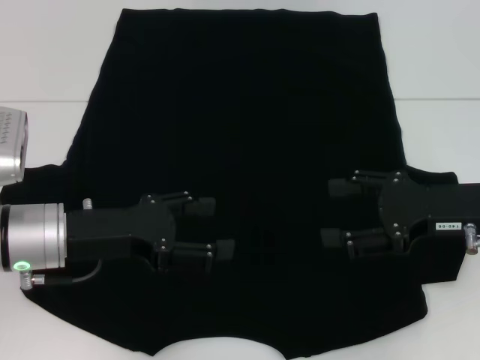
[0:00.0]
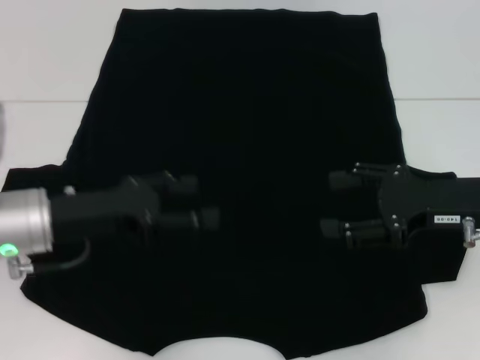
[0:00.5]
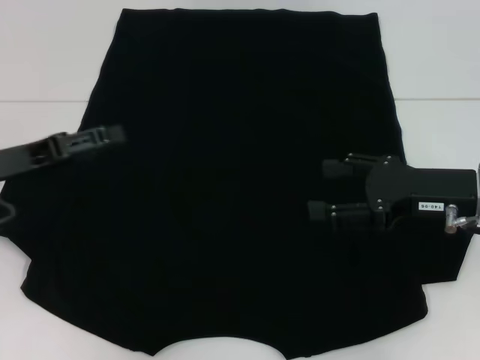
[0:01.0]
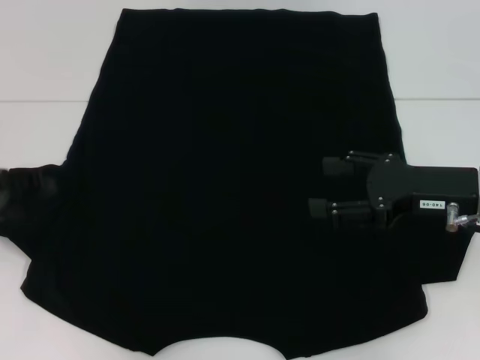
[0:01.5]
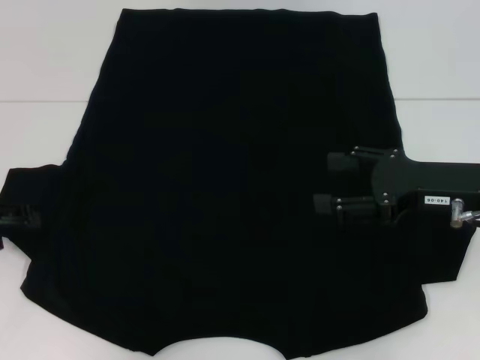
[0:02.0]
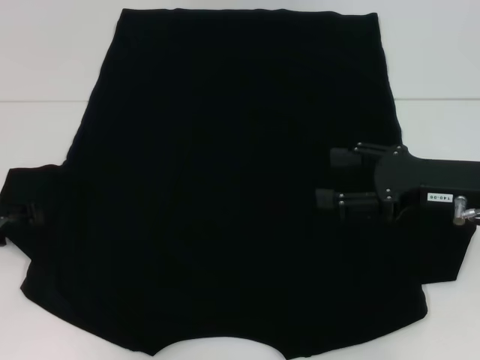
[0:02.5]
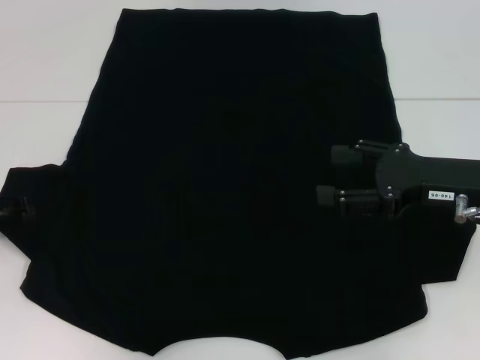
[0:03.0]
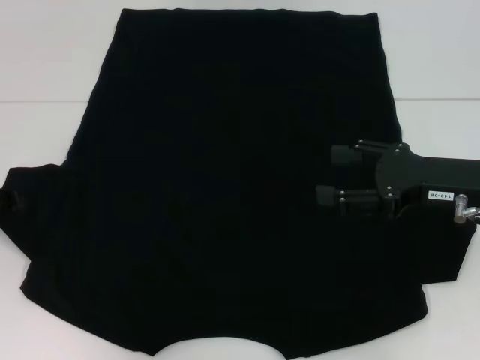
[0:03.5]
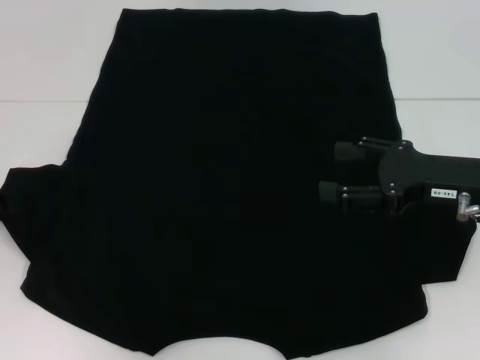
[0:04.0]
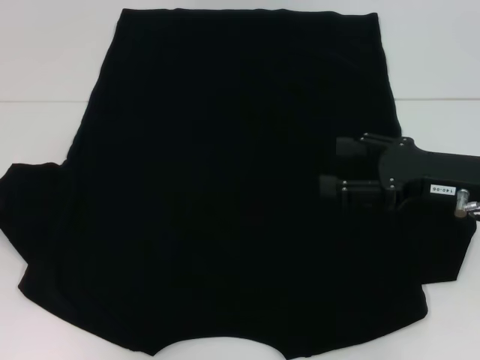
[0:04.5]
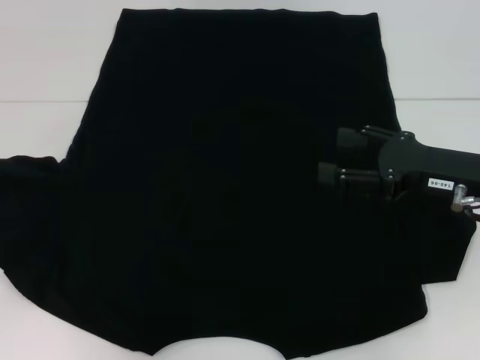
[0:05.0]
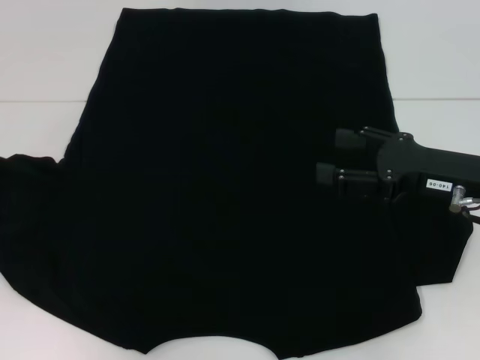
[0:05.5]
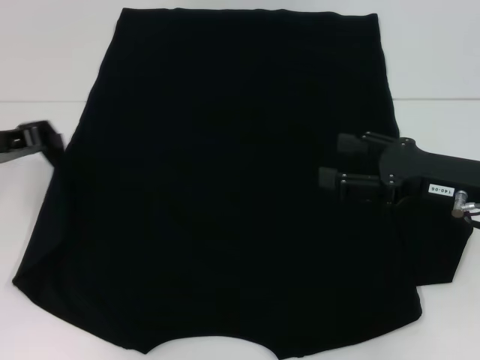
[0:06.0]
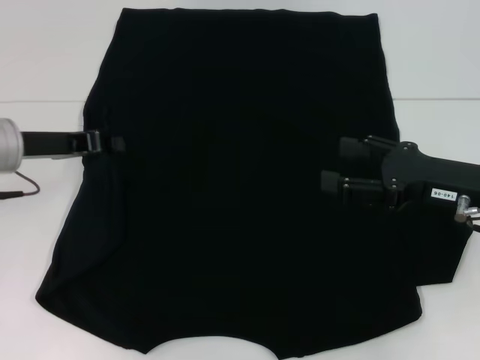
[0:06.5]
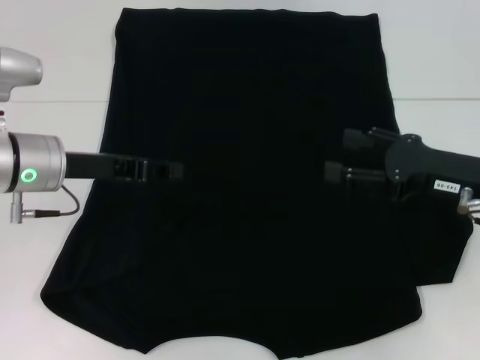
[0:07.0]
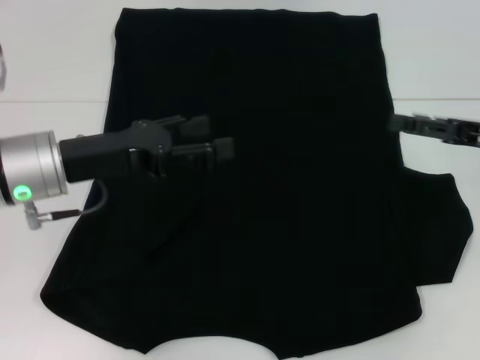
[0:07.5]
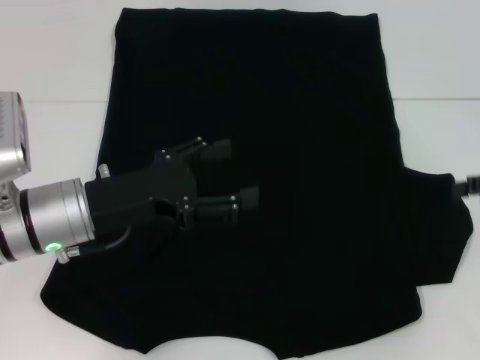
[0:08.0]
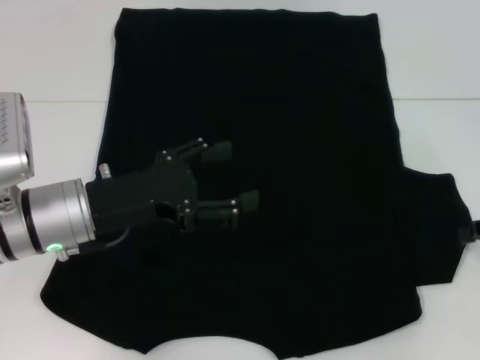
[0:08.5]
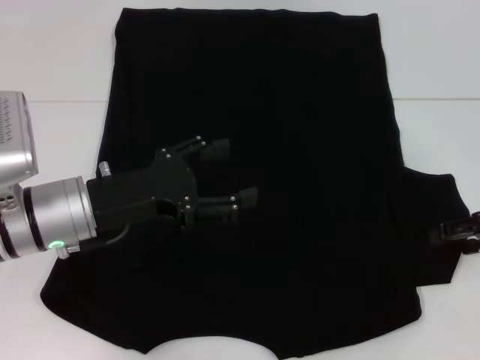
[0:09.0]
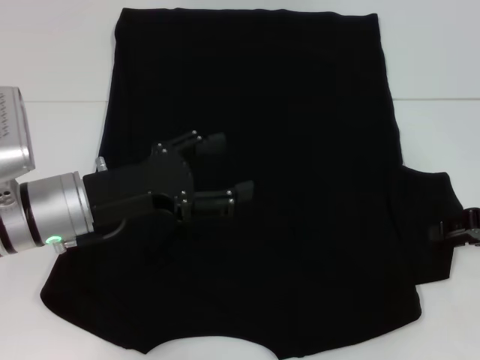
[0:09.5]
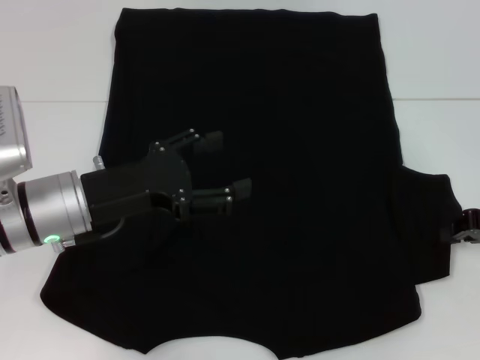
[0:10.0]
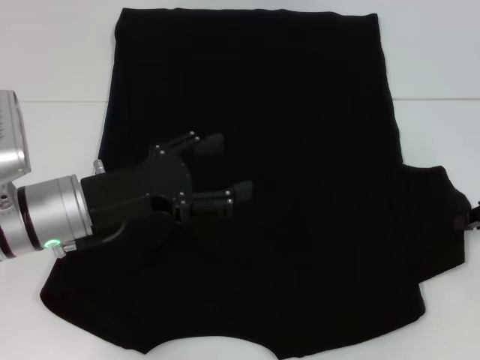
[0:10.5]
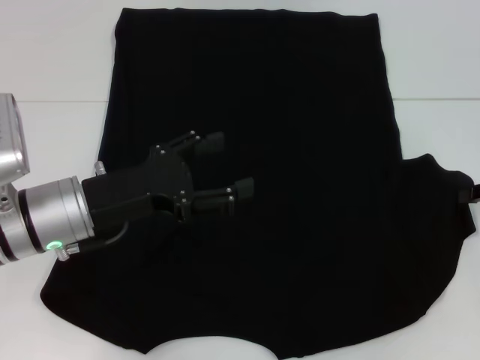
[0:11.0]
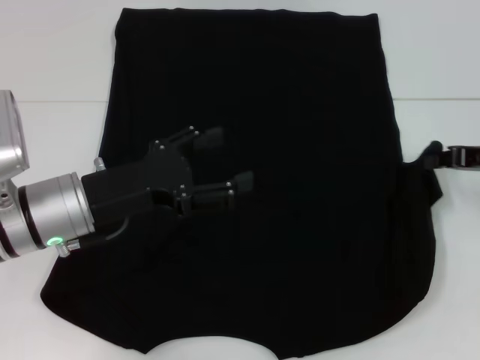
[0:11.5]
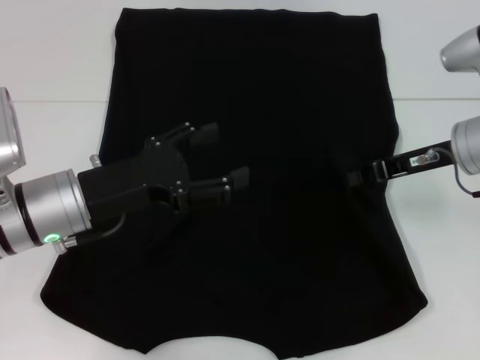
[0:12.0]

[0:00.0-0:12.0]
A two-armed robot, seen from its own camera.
Step, 0:00.0 to 0:06.5: Fold the bottom left sleeve with your left hand.
0:00.0 to 0:02.0: The left gripper is displaced to the left by about 15 cm.
0:04.0 to 0:06.0: The left gripper moves roughly 5 cm, and closes.
0:06.0 to 0:08.0: The left gripper goes about 15 cm to the right and backward, and opens its fingers. The right gripper heads to the right, covering about 10 cm.
0:08.0 to 0:10.0: The right gripper changes place by approximately 5 cm, and closes up.
0:10.0 to 0:12.0: The right gripper shifts some 10 cm to the left and forward.

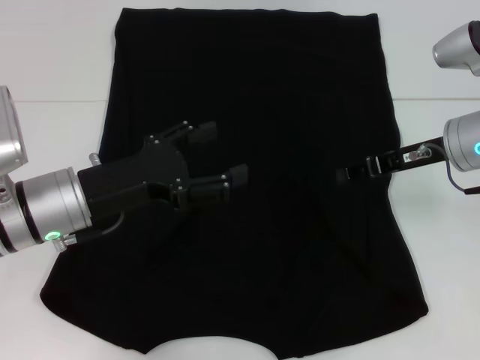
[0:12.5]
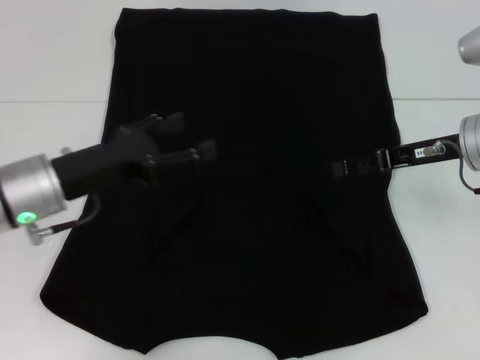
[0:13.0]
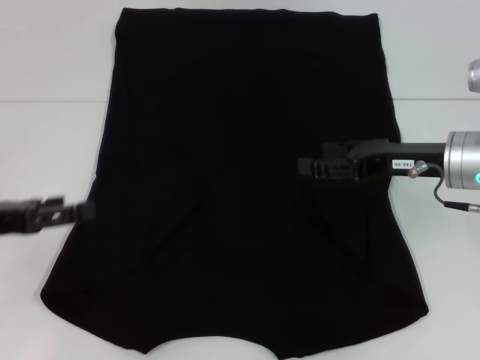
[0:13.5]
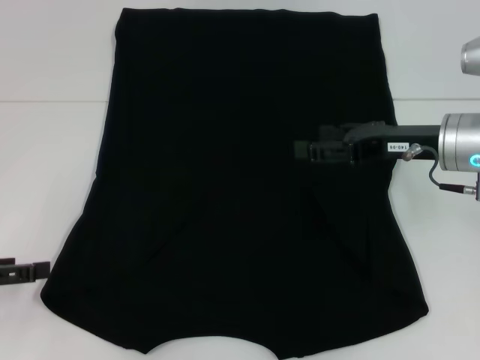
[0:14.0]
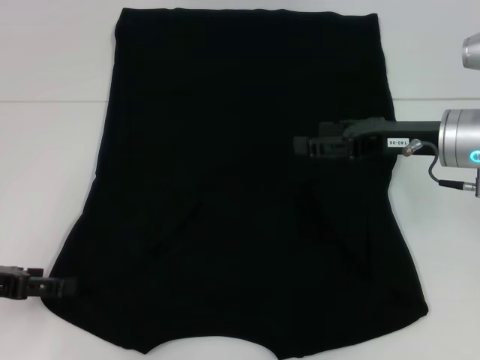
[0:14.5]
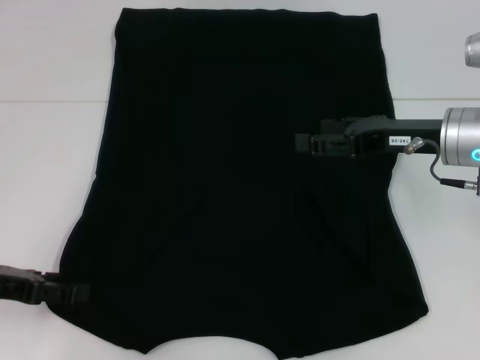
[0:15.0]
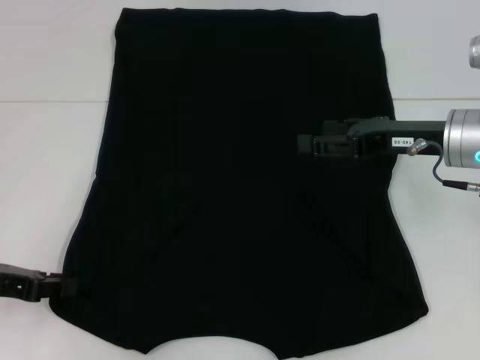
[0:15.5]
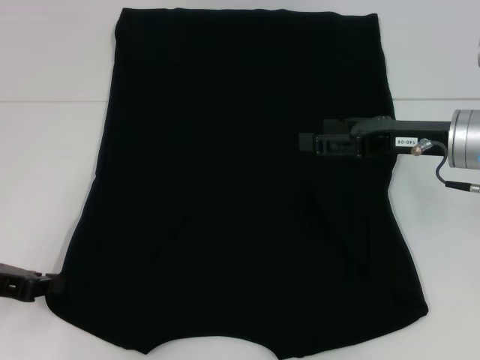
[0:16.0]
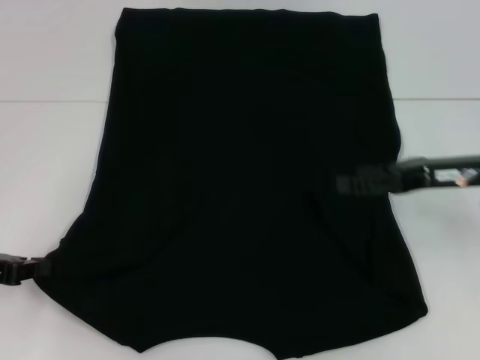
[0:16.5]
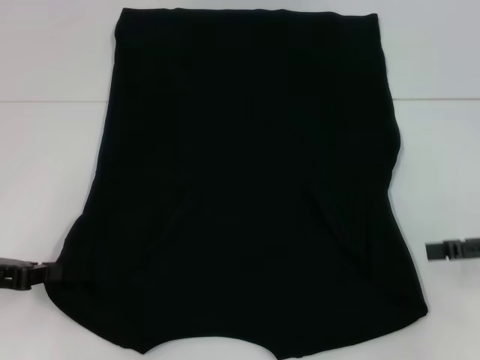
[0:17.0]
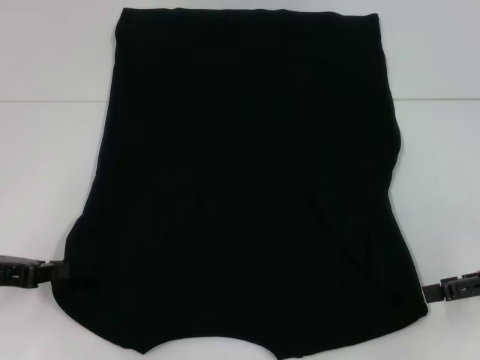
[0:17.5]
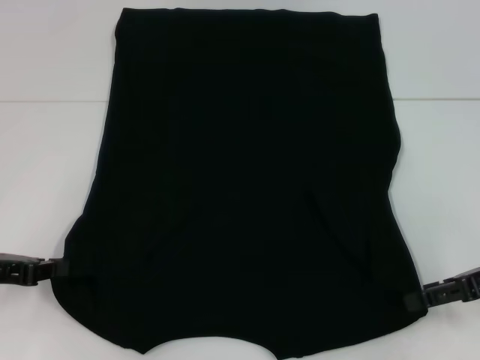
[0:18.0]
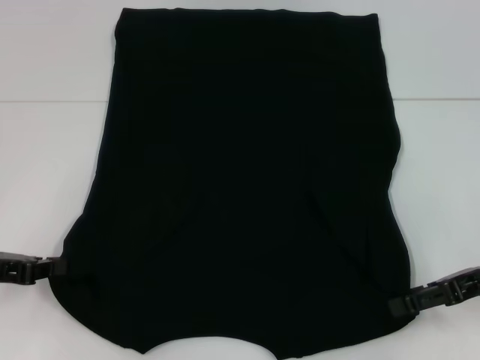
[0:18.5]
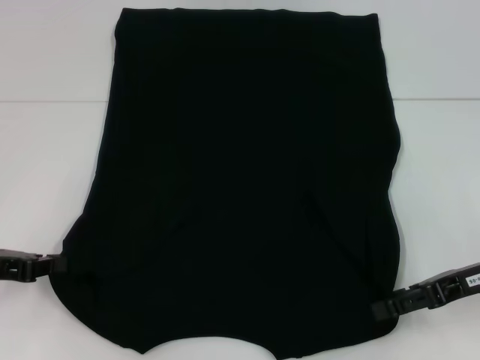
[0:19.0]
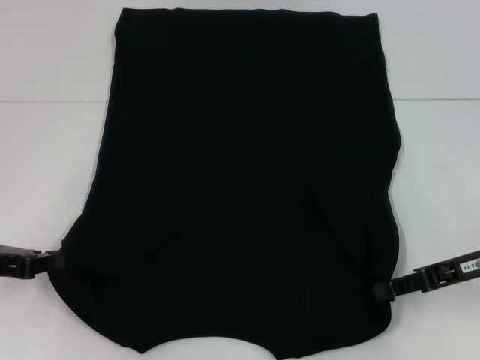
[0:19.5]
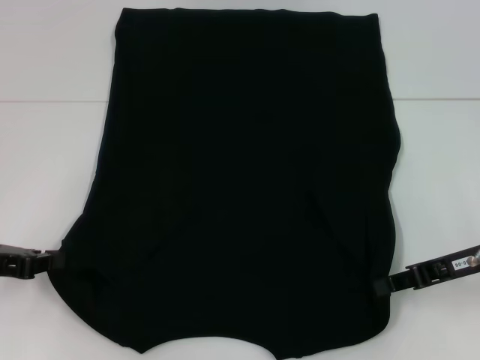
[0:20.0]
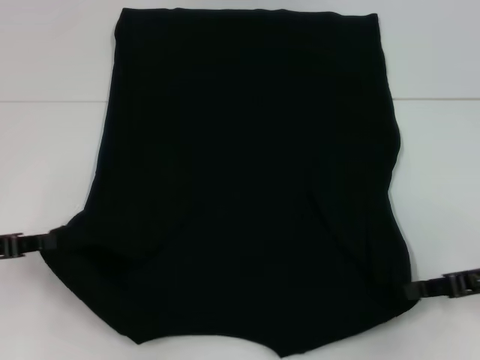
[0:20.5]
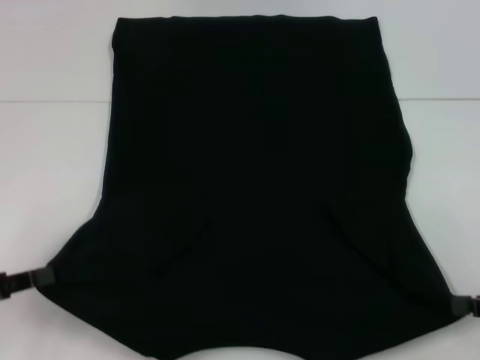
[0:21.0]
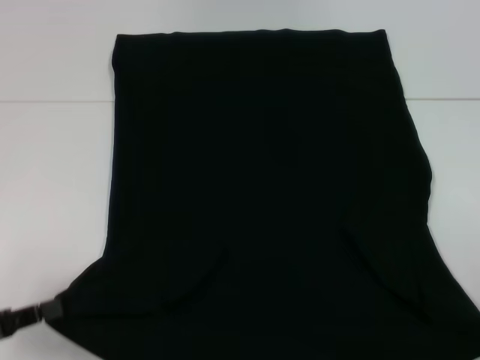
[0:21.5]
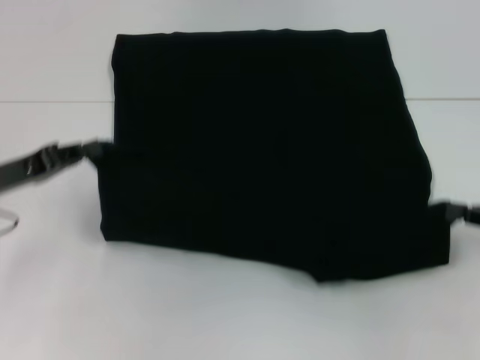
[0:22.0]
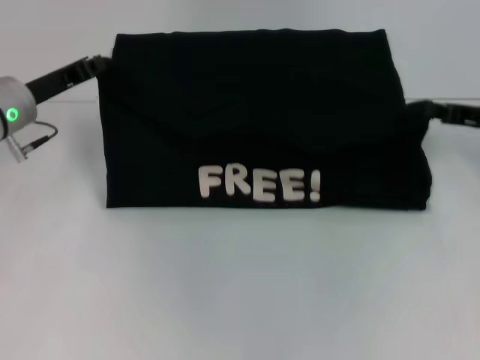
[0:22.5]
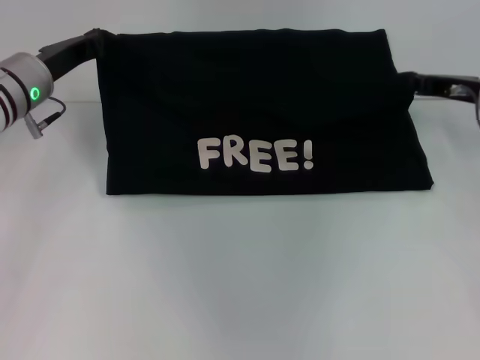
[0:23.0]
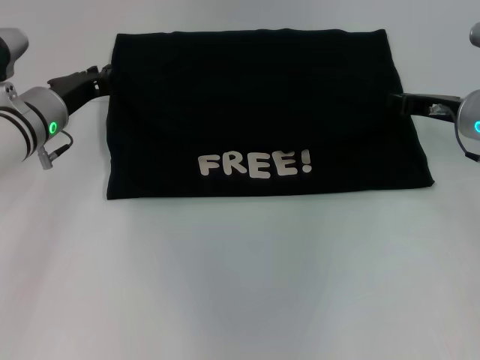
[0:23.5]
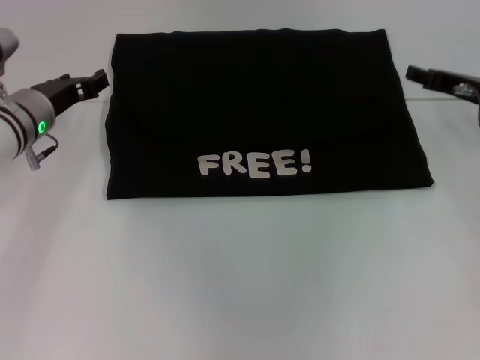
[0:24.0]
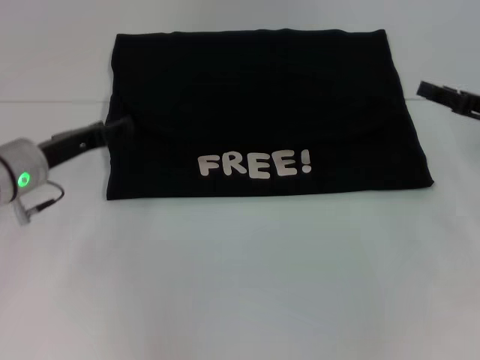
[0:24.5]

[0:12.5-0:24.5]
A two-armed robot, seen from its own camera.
Step, 0:12.5 to 0:16.0: Grab the bottom left corner with your left hand.
Step, 0:16.5 to 0:18.5: Grab the bottom right corner with your right hand.
Step, 0:19.0 to 0:23.5: Fold the clothes with your left hand.
Step, 0:19.0 to 0:23.5: Fold the clothes with your right hand.
0:12.5 to 0:14.5: The right gripper opens. Meanwhile the left gripper shifts approximately 15 cm to the left.
0:14.5 to 0:16.5: The left gripper closes up.
0:16.5 to 0:18.5: The right gripper travels backward by some 5 cm.
0:18.5 to 0:20.5: The right gripper closes its fingers.
0:20.5 to 0:22.5: The left gripper moves forward and to the right, roughly 15 cm. Meanwhile the right gripper moves forward, some 10 cm.
0:22.5 to 0:24.5: The right gripper opens up. Meanwhile the left gripper changes place by some 5 cm, and opens its fingers.

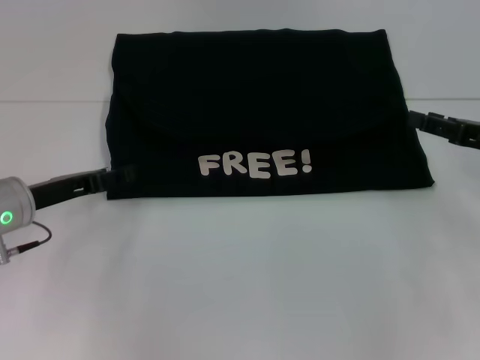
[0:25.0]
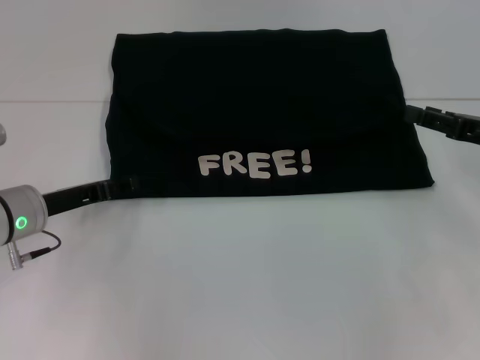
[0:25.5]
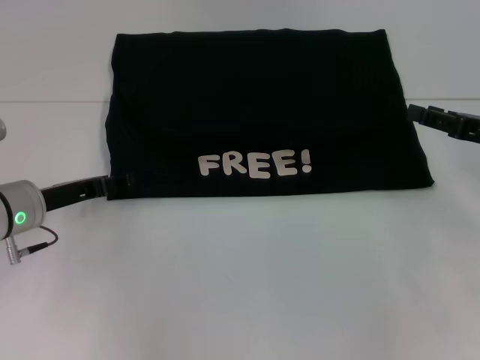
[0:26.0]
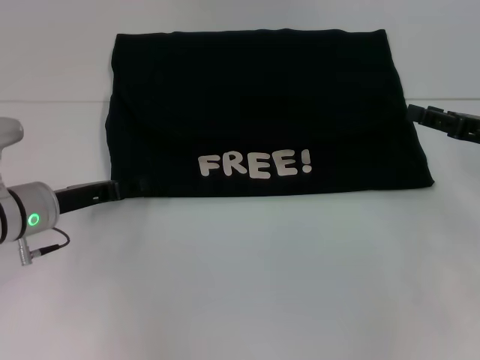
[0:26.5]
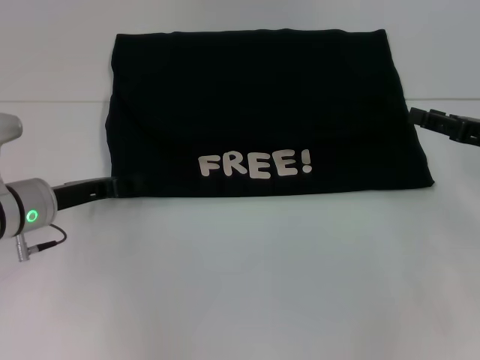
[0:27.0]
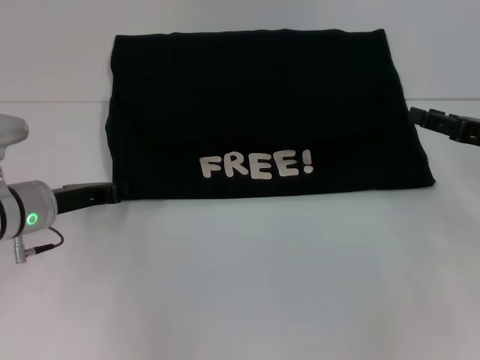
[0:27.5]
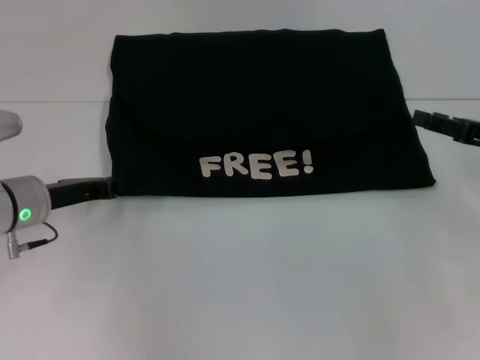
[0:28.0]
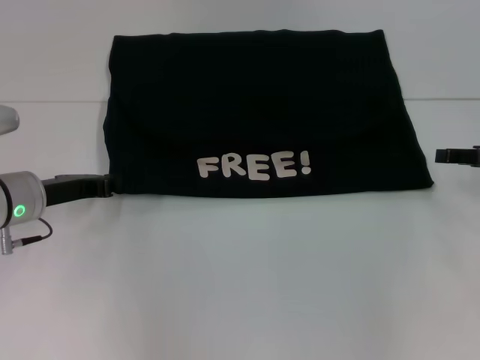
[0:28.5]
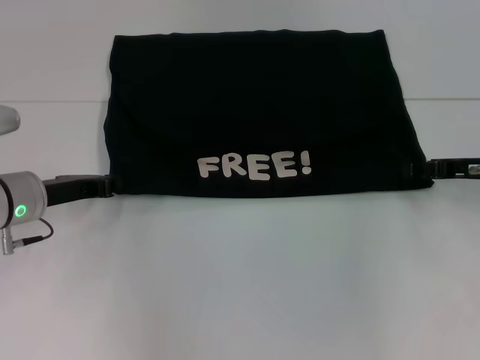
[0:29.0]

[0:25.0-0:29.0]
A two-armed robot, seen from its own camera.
0:25.0 to 0:27.0: The grippers stay close to where they were, moving slightly.
0:27.0 to 0:29.0: The left gripper closes its fingers.
